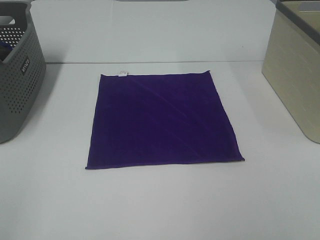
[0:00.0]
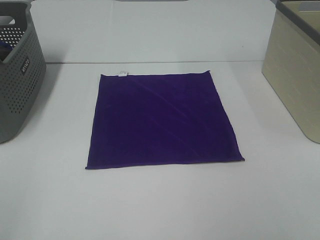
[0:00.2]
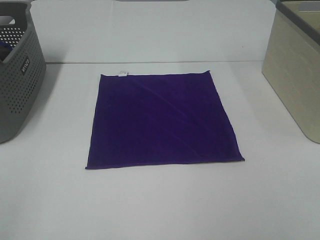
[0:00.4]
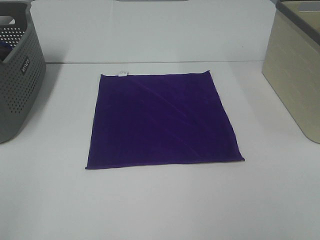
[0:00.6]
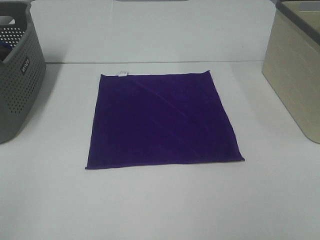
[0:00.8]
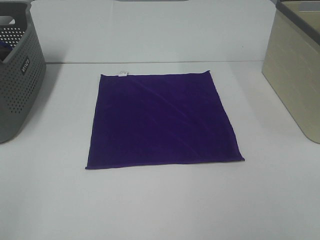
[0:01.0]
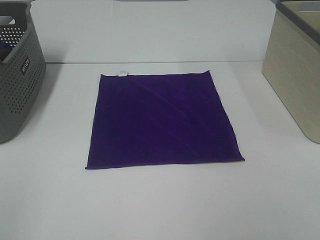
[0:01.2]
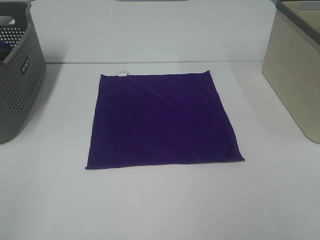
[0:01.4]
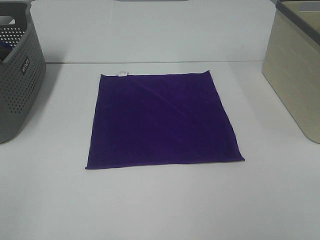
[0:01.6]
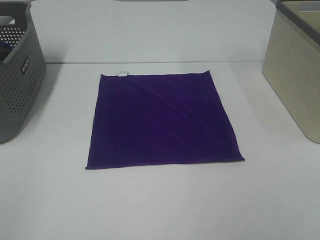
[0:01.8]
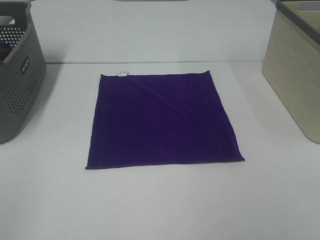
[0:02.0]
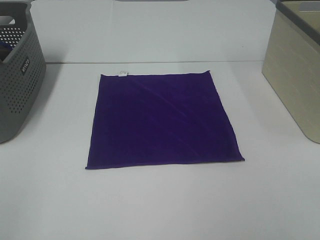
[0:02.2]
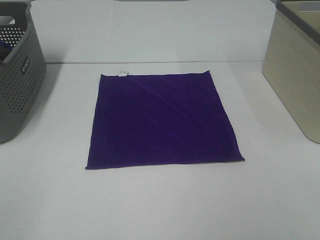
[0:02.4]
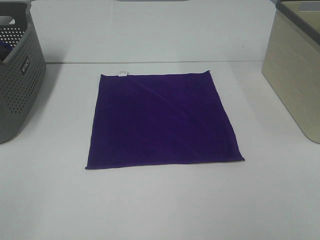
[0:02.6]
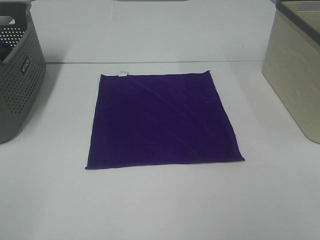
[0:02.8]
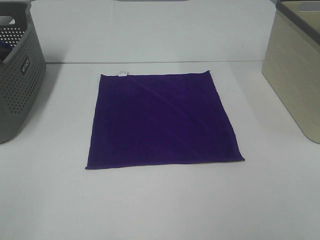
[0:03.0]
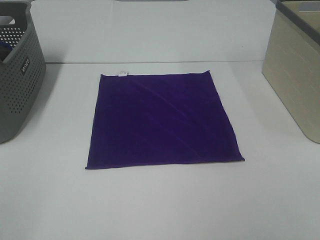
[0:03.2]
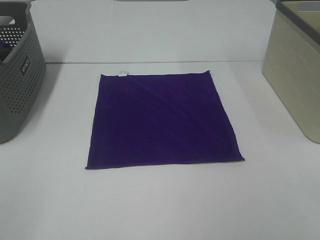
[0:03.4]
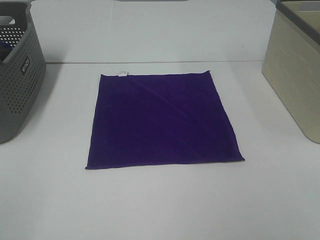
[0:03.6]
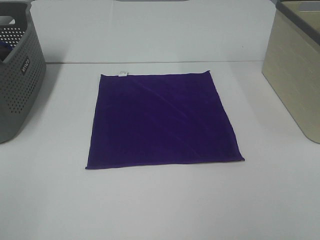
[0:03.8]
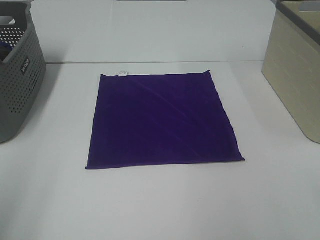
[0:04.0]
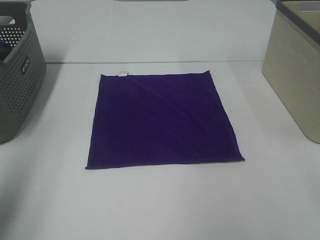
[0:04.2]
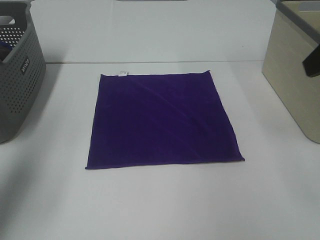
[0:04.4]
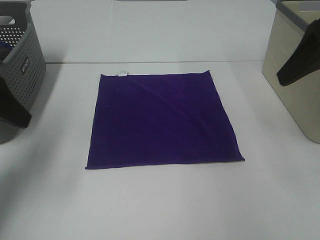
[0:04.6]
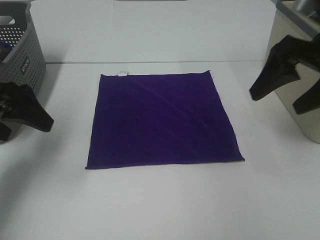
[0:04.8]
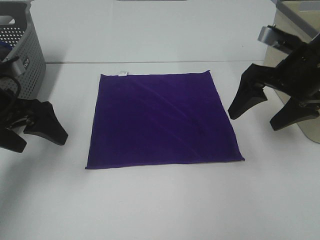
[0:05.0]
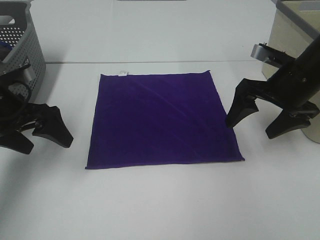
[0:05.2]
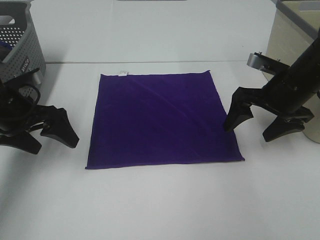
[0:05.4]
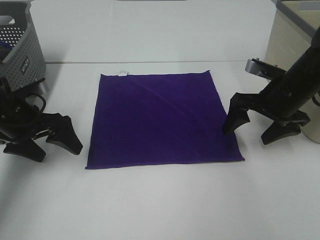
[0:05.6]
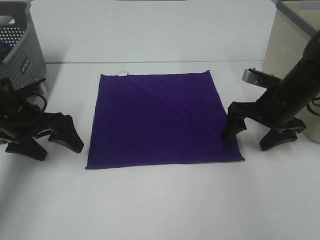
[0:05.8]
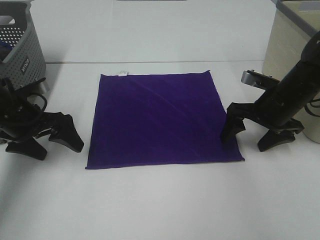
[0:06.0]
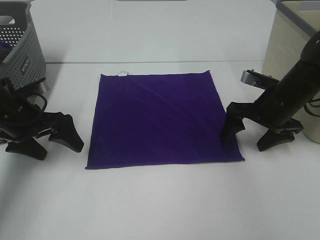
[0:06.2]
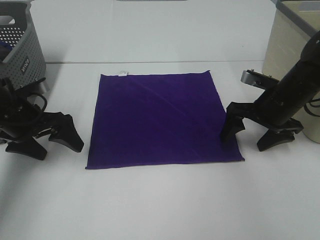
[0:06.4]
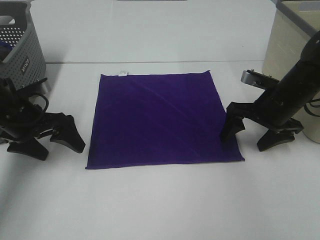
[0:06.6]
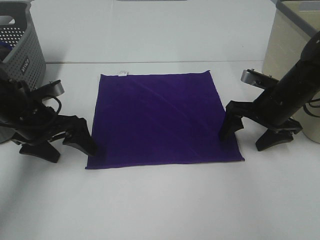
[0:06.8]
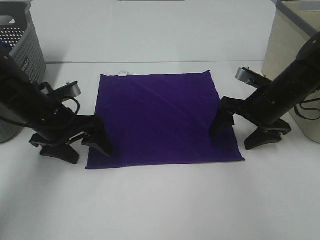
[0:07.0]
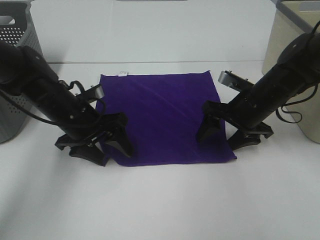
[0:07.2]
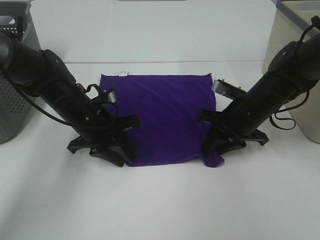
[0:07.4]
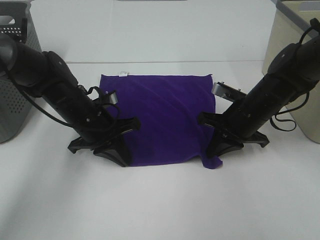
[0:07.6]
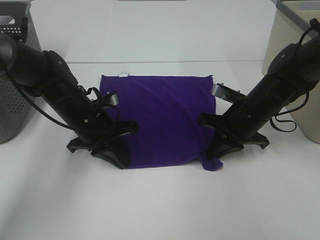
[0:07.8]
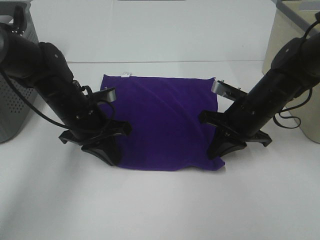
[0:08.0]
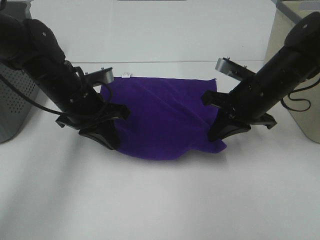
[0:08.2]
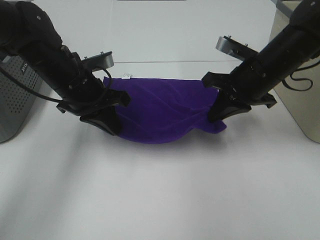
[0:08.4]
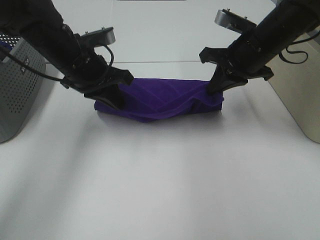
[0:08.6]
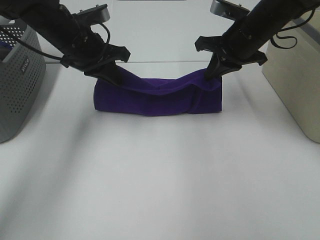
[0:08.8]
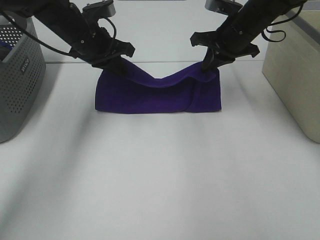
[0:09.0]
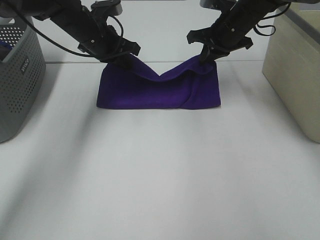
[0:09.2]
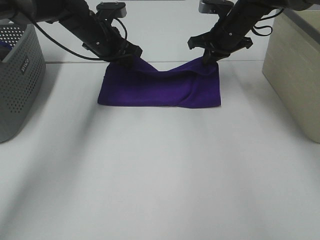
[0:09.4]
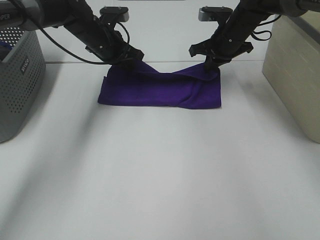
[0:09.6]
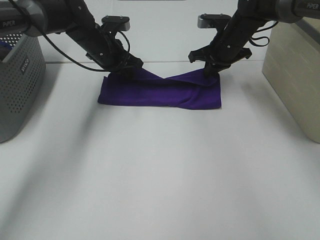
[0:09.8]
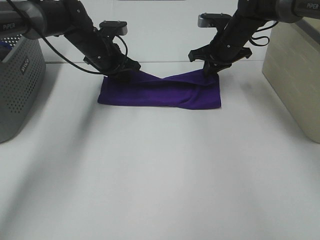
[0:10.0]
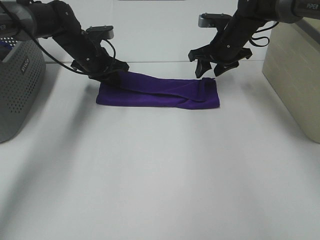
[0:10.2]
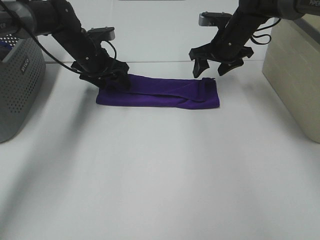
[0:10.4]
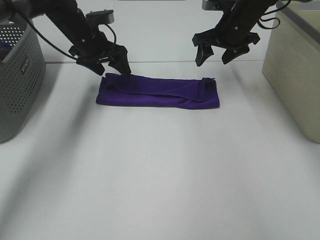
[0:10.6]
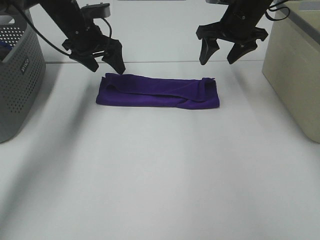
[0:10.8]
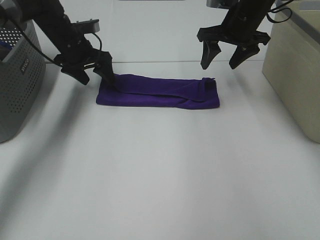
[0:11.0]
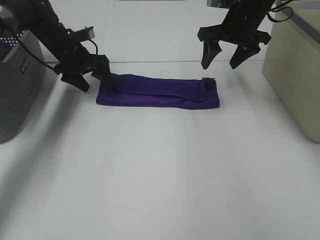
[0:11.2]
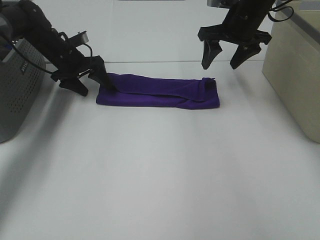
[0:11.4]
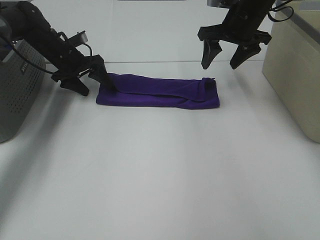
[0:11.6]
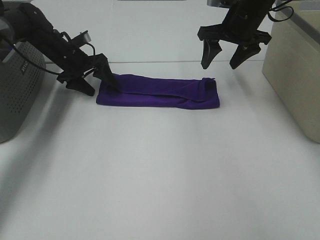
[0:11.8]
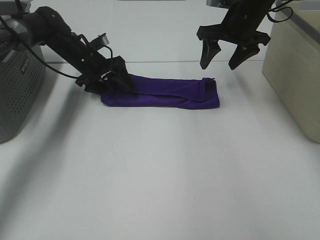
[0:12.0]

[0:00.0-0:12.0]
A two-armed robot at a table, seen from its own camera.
Task of the whole recording: Fold towels.
Step, 0:00.0 to 0:07.8: Left hand: grab the bottom left corner of purple towel.
Step, 0:00.0 to 0:07.8: Right hand: grab the bottom right corner of purple towel.
Step, 0:08.0 to 0:09.6: Left hand: fold the purple towel up.
Step, 0:08.0 to 0:09.6: Right hand: fold the purple towel up.
0:00.0 to 0:03.0: Both grippers stay about where they are.
0:03.0 to 0:04.4: The left gripper goes about 20 cm forward.
0:04.4 to 0:06.0: The two grippers go some 25 cm downward and forward.
0:06.0 to 0:07.6: The left gripper goes some 10 cm to the right, and closes up, while the right gripper goes roughly 5 cm to the left, and closes.
0:07.6 to 0:09.0: The left gripper moves upward and forward, roughly 15 cm. Meanwhile the right gripper is displaced forward and upward by roughly 15 cm.
0:09.0 to 0:10.4: The left gripper is displaced downward and forward by some 10 cm, and opens, while the right gripper ends up approximately 5 cm from where it was, and opens.
0:10.4 to 0:12.0: The right gripper travels upward by roughly 5 cm.

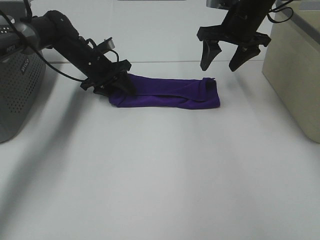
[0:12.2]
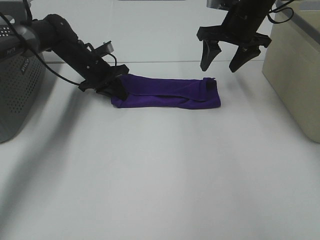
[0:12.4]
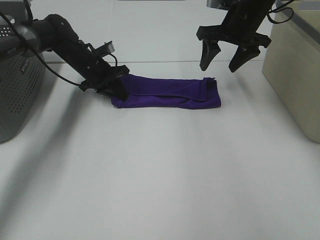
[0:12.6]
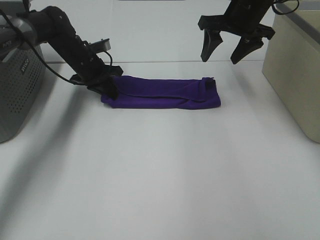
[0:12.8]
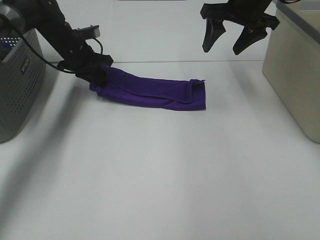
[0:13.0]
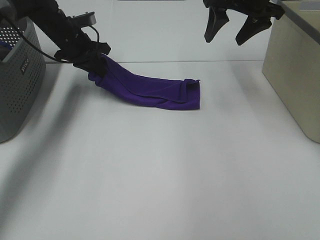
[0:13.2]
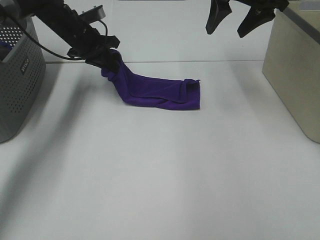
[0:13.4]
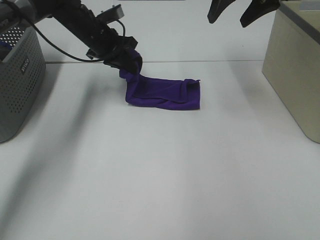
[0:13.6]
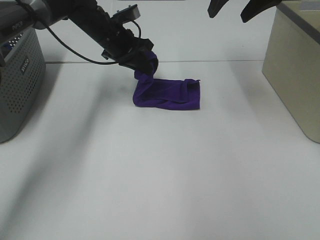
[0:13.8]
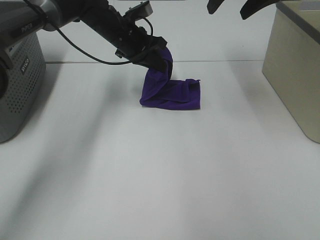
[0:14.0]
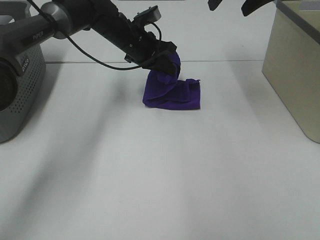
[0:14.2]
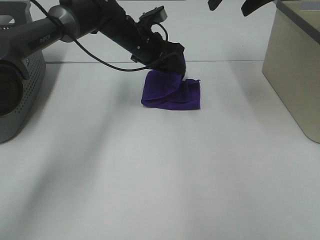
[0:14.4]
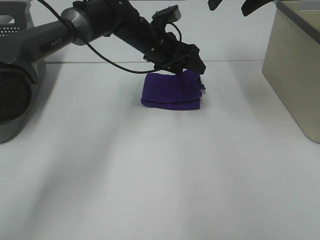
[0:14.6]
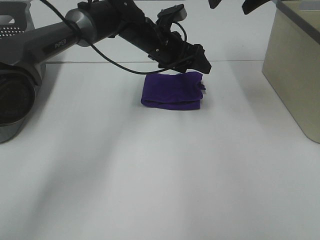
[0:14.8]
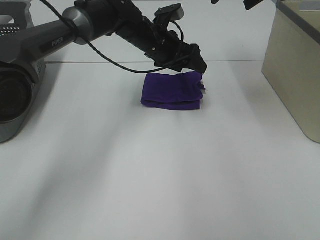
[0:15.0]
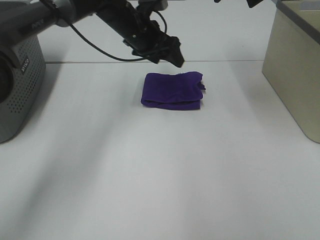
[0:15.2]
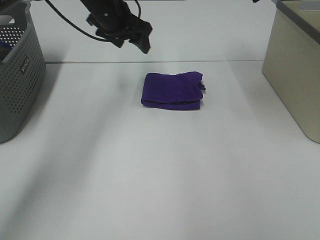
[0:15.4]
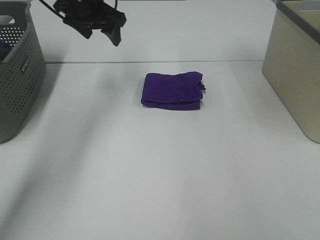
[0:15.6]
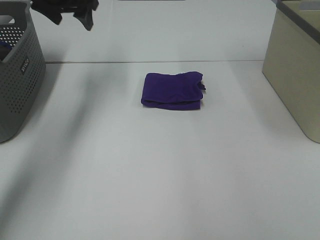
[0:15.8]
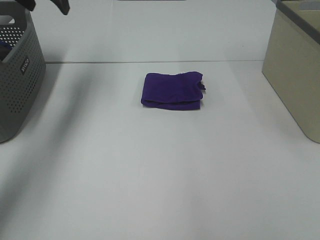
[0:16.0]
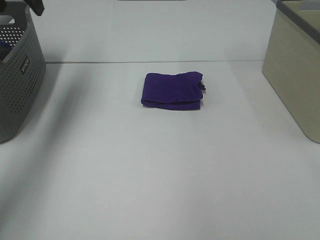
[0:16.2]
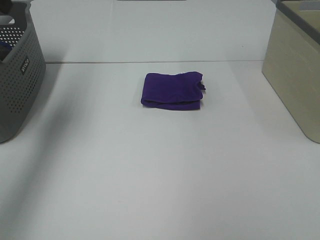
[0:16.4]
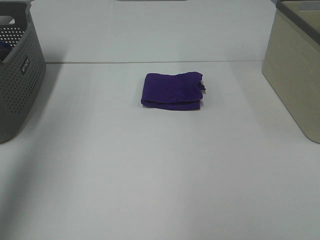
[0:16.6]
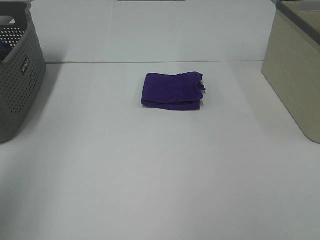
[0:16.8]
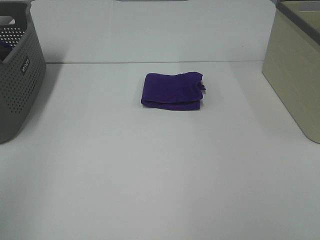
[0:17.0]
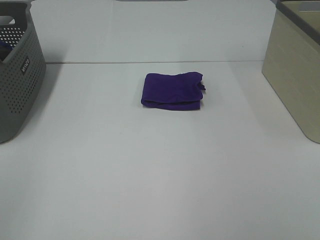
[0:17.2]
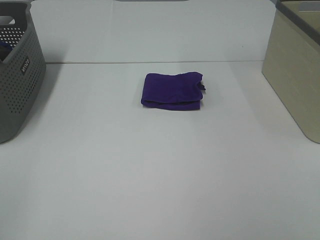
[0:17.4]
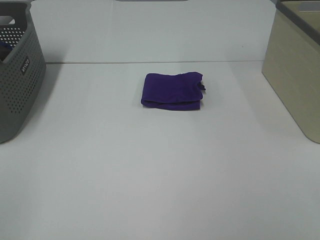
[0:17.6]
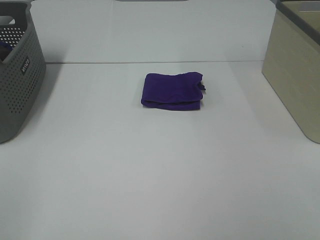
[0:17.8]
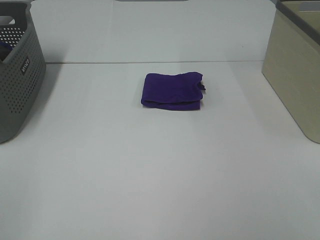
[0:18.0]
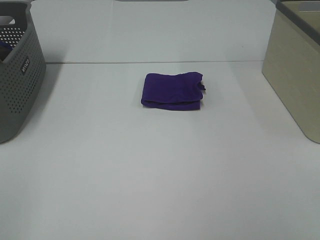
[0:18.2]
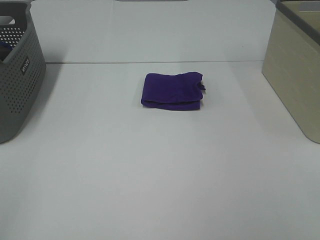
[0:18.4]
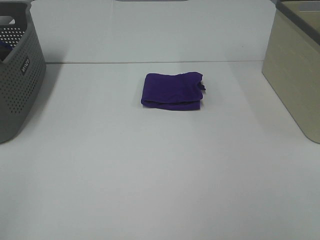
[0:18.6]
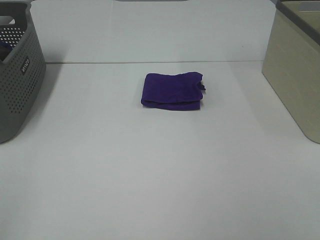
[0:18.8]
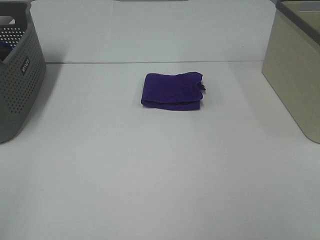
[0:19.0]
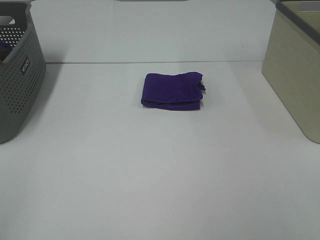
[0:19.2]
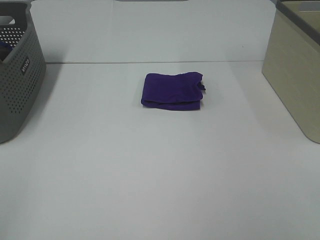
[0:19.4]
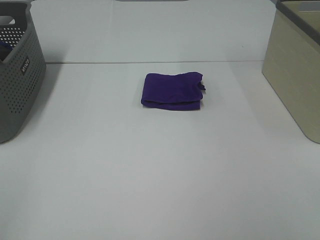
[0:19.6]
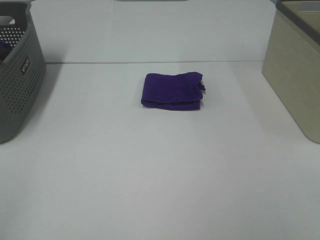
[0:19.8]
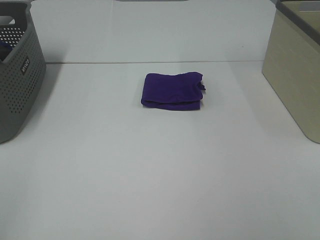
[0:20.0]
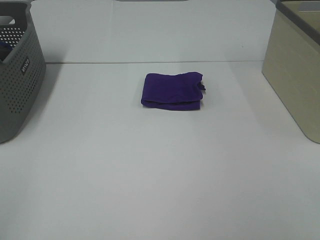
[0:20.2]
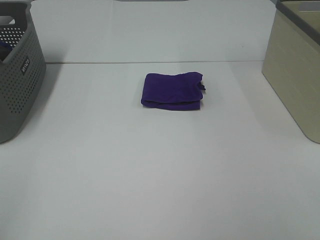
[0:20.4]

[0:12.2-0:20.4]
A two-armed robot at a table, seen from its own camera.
Task of the whole recording: Fold towels.
Step, 0:12.2 to 0:14.2: Left hand: fold the purple towel from left to right.
0:12.2 to 0:13.8: The left gripper travels upward and to the right by some 10 cm, and closes. The right gripper is displaced upward by some 10 cm.
0:13.8 to 0:15.4: The left gripper travels upward by approximately 5 cm, goes to the right and returns, roughly 10 cm each way, and opens.
0:15.4 to 0:17.2: The right gripper travels backward by approximately 40 cm, while the left gripper goes approximately 50 cm backward and to the left.
0:18.8 to 0:20.4: Neither gripper changes place.

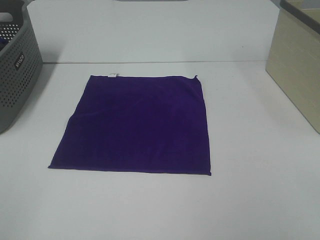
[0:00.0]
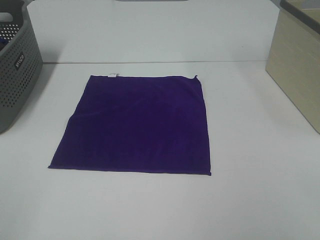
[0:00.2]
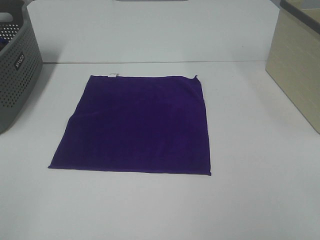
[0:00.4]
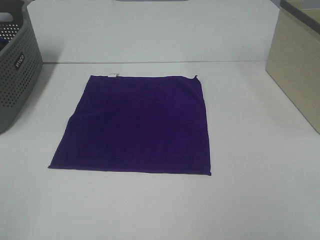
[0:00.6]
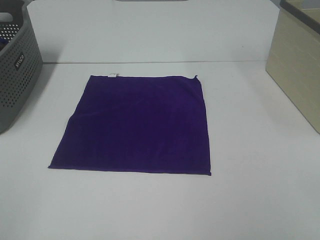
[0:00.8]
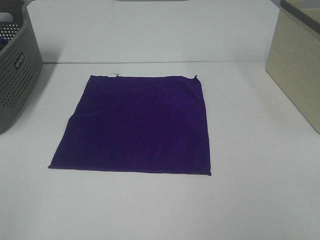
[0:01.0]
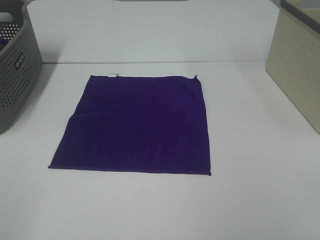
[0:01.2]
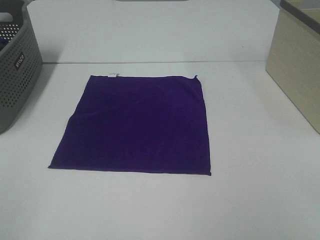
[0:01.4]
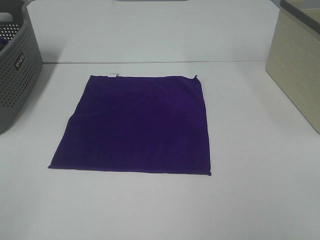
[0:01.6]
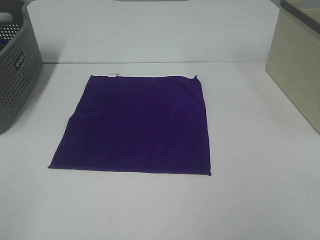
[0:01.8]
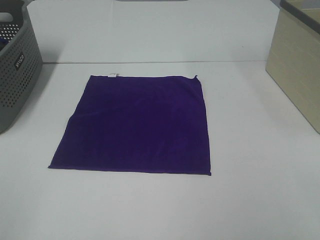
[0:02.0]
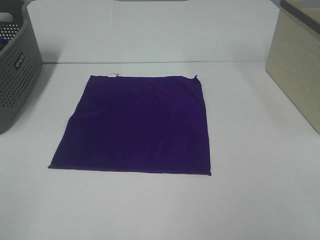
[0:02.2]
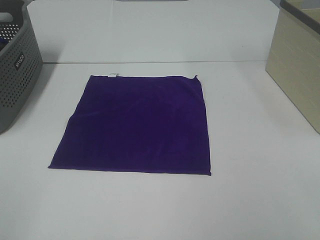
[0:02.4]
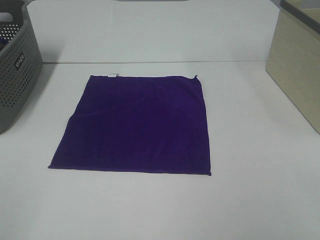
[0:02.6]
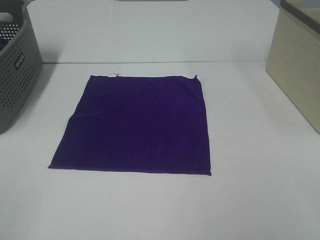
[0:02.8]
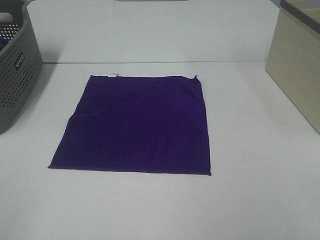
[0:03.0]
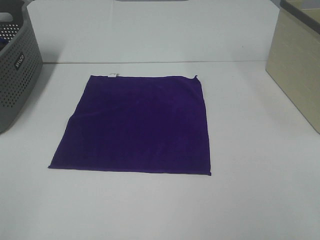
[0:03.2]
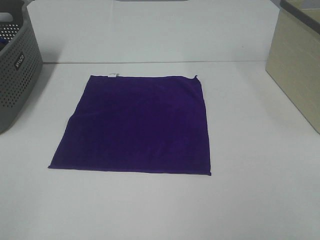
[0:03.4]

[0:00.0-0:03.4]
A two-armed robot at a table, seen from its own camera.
Task of the whole recording: Fold towels.
0:00.0 to 0:03.4: Neither gripper changes place.
